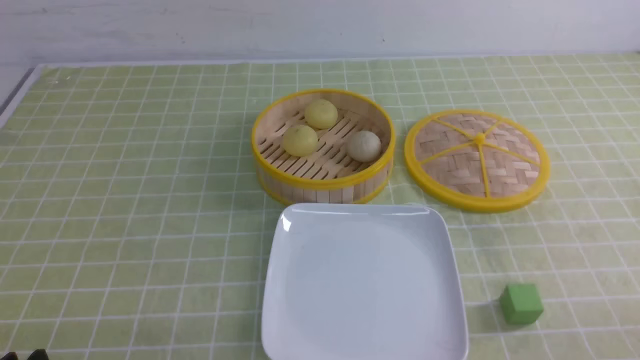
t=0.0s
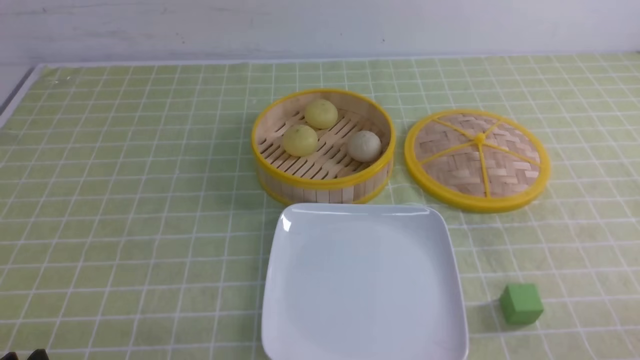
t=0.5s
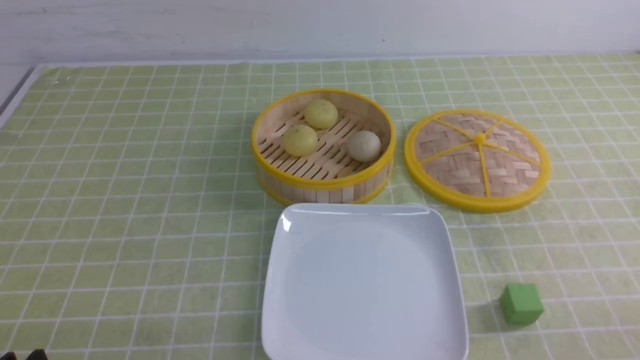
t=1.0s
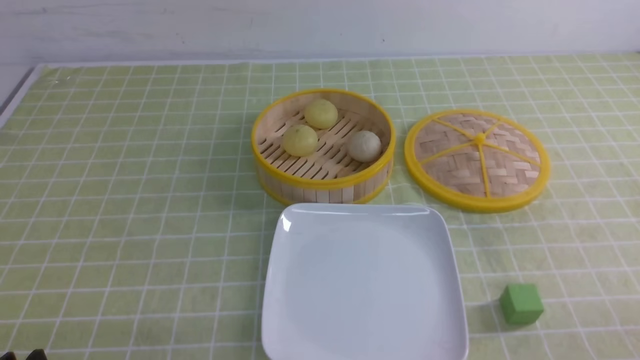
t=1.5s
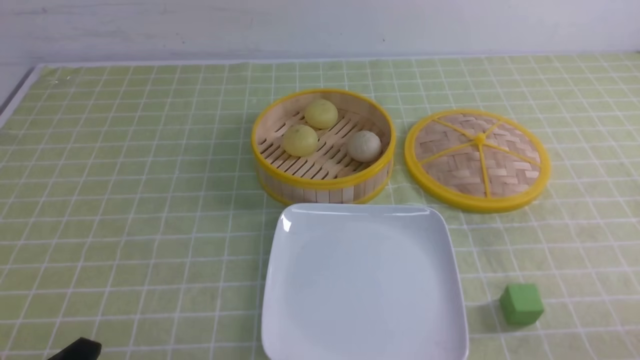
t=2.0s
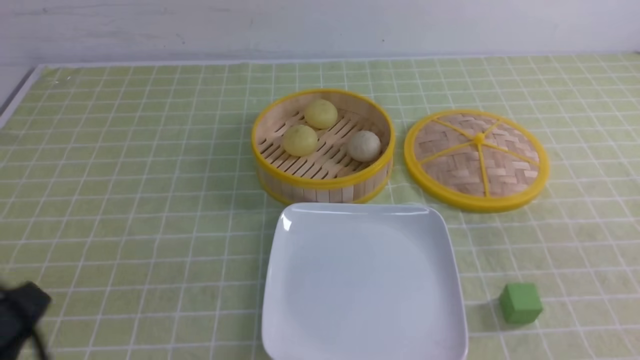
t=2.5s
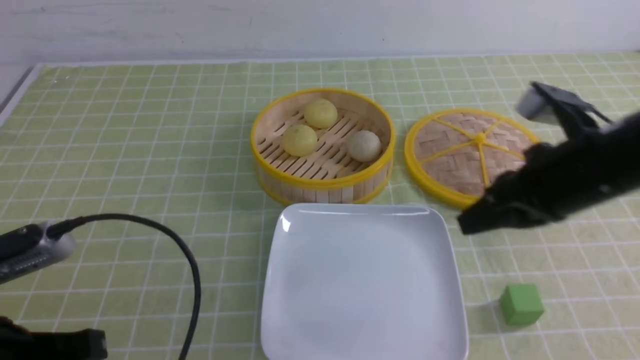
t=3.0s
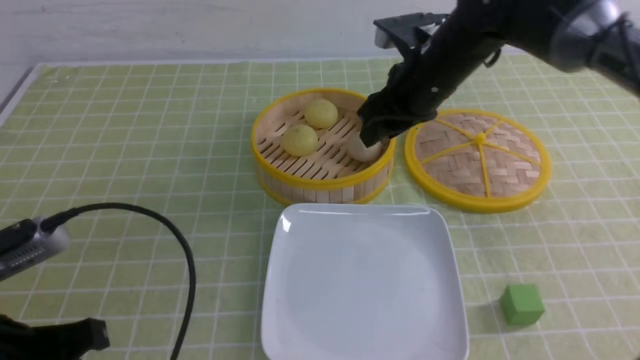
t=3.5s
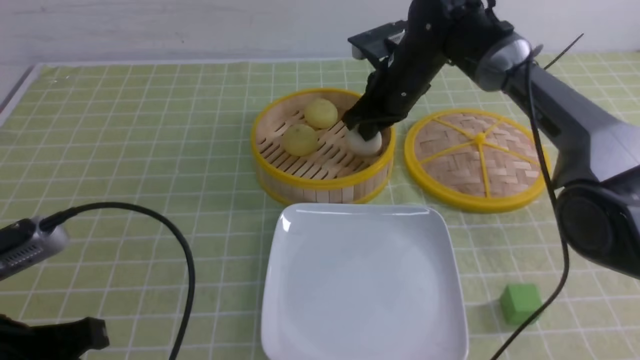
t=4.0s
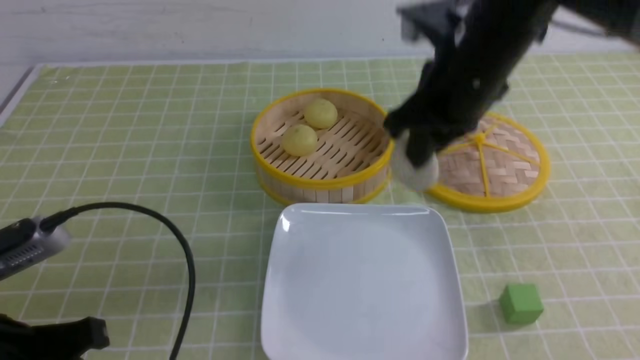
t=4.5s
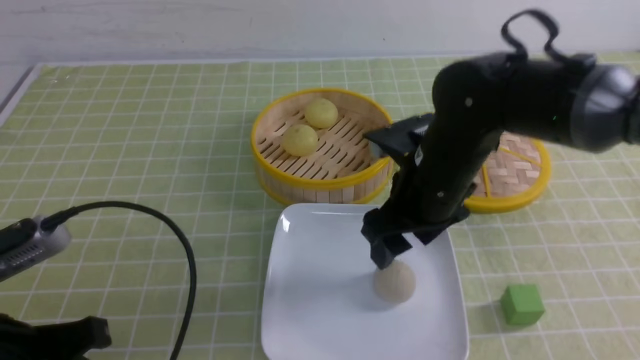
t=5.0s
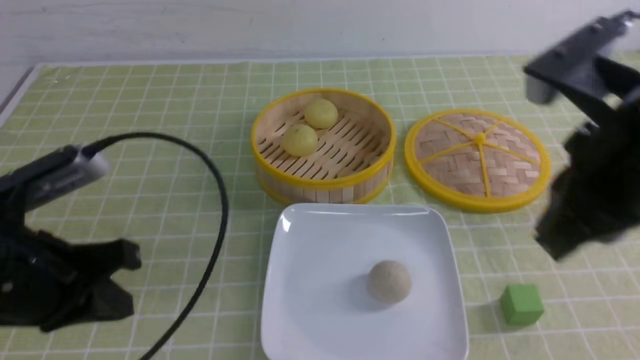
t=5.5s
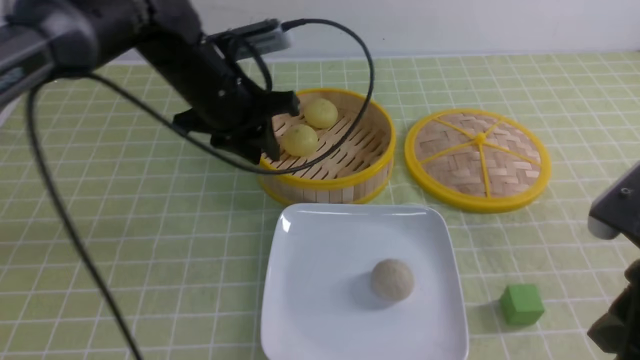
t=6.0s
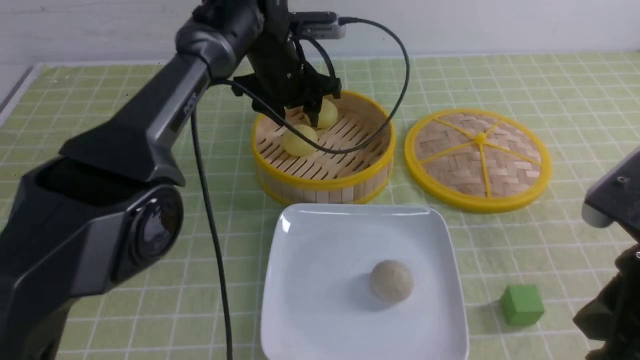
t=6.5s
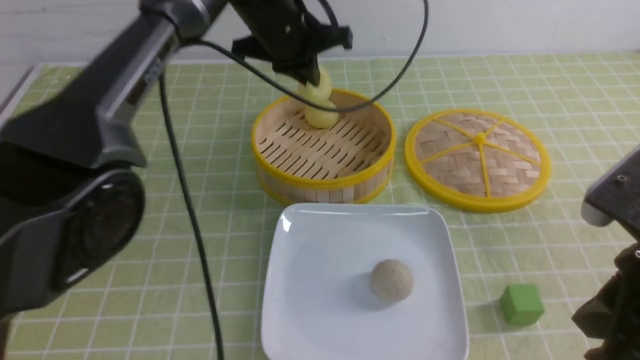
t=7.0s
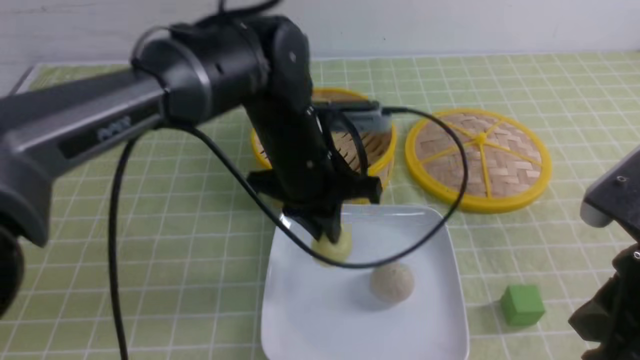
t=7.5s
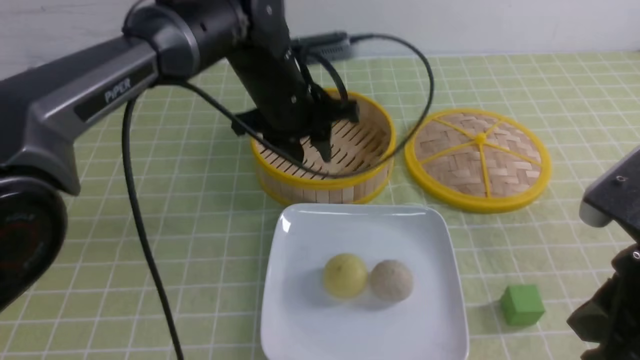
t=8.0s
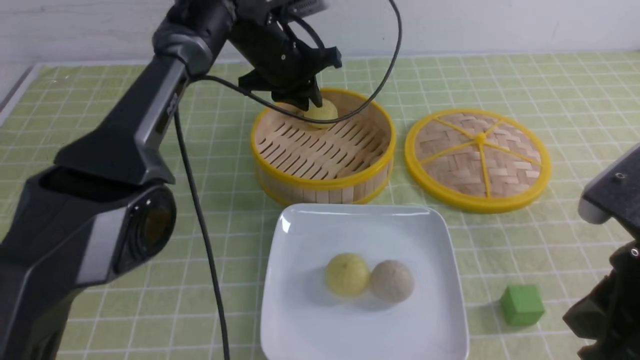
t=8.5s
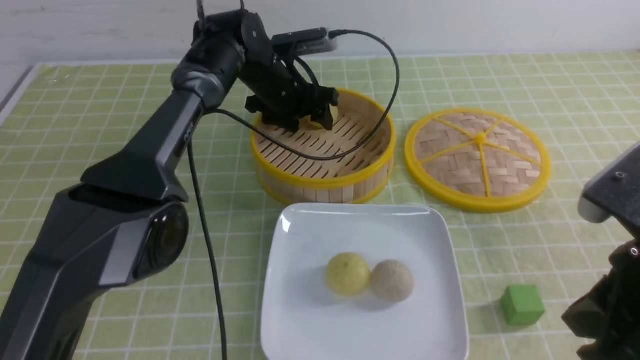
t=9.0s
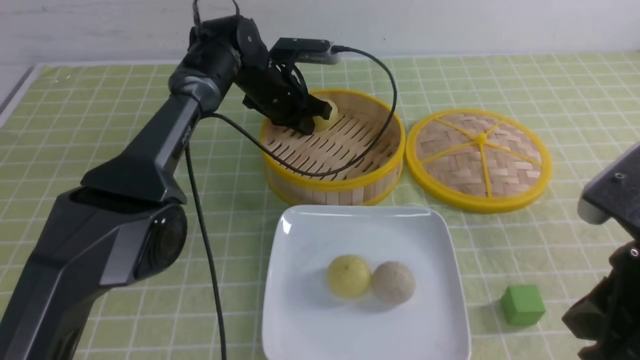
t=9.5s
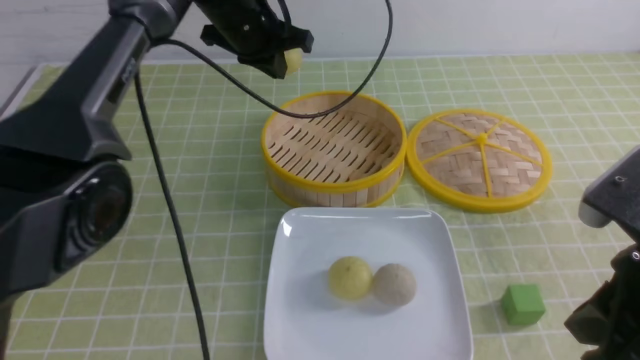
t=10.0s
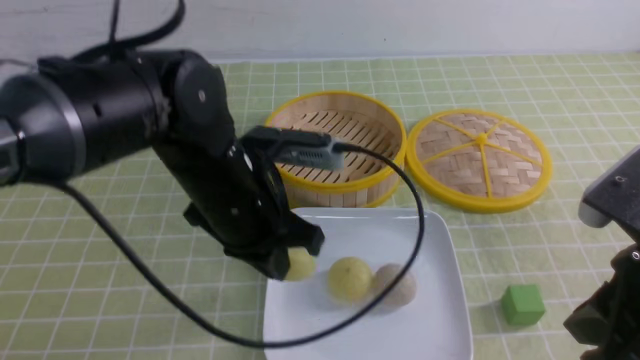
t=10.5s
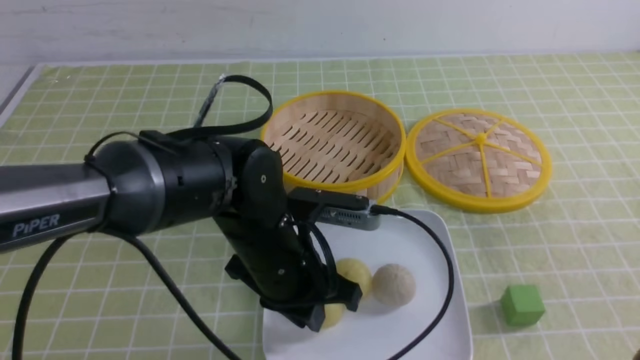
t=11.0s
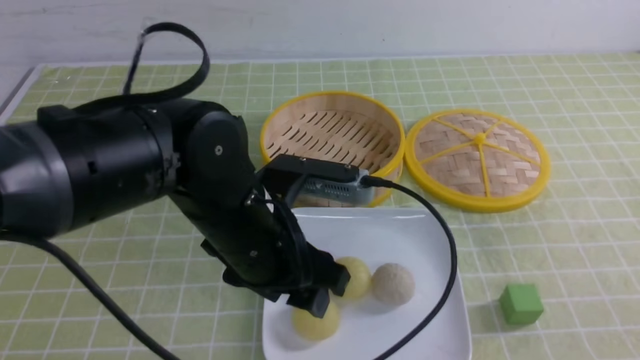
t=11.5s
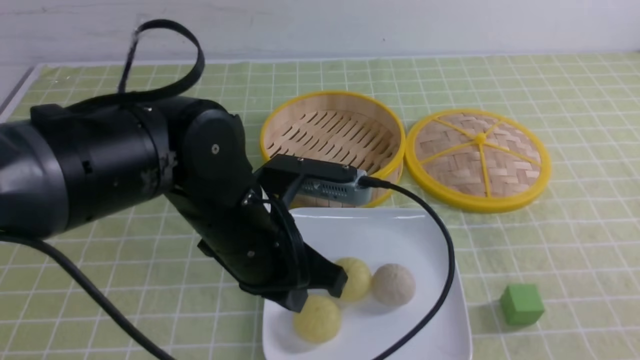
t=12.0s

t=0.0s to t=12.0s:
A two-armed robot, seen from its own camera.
Step, t=0.0s to t=3.5s: use the right arm to grab the steamed stuffed bun that is closest to it.
Step, t=4.0s to t=4.5s: use the right arm to put the steamed stuffed bun into the plate.
Step, t=5.0s to t=6.5s: use the left arm to grab the steamed stuffed bun that is closest to it.
Step, t=7.0s to t=7.5s: use the left arm to put the steamed stuffed bun into the plate.
Step, t=8.0s to t=9.5s: use the left arm to grab the steamed stuffed bun that is closest to it.
Step, t=10.0s to t=11.0s: use the left arm to put the steamed stuffed bun into the plate.
t=2.0s to t=4.0s: The left gripper shifts about 10 cm upward and forward, and closes up. Meanwhile the right gripper travels forward and to the left by about 50 cm.
t=4.0s to t=6.0s: The right gripper moves backward, some 35 cm, and opens and closes again. The left gripper goes approximately 30 cm forward and to the right, and opens its fingers.
t=6.0s to t=8.0s: The left gripper goes forward and backward, about 15 cm each way, reversing 2 times, and closes, then reopens.
t=8.0s to t=10.0s: The left gripper moves forward and to the left, approximately 10 cm, and closes.
t=10.0s to t=12.0s: The left gripper goes roughly 25 cm backward, and opens and closes again; the right gripper moves backward and to the right, approximately 15 cm.

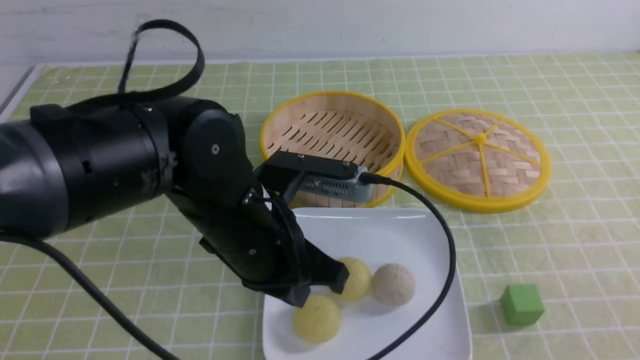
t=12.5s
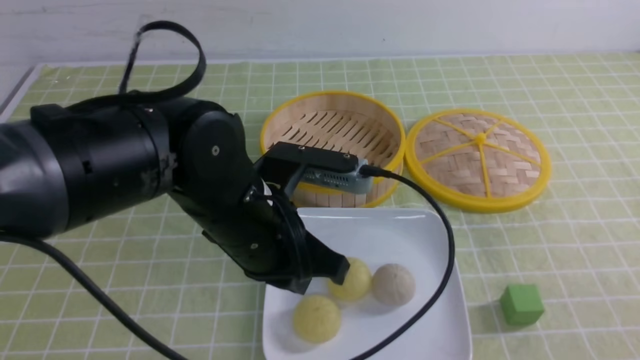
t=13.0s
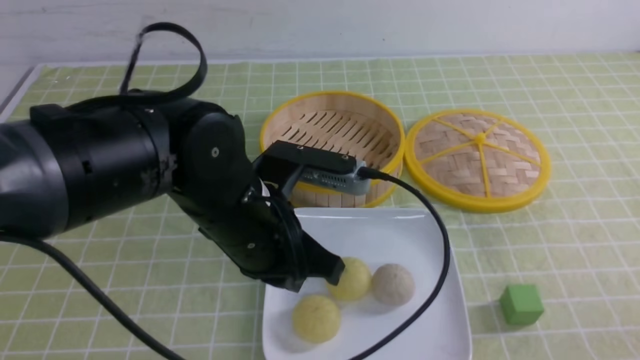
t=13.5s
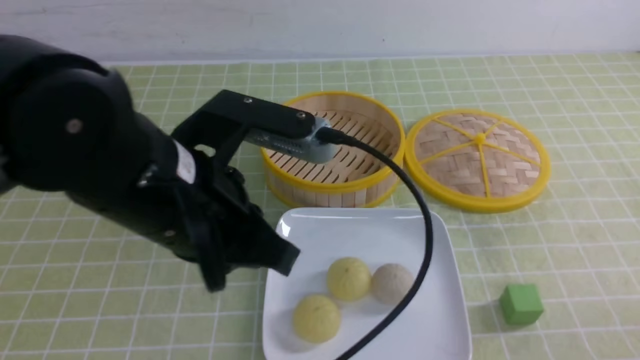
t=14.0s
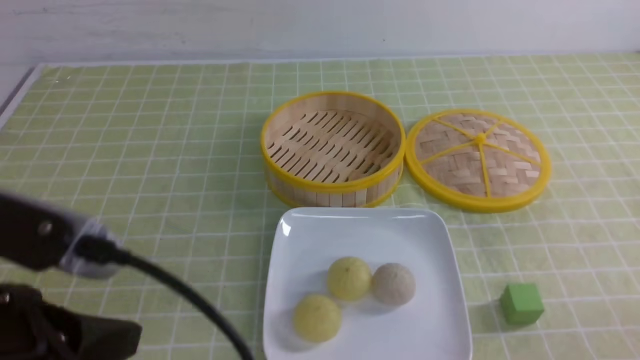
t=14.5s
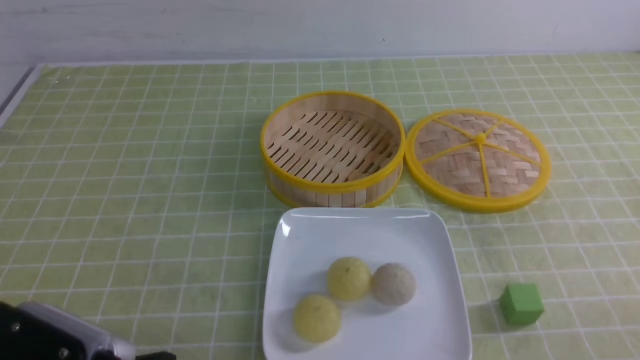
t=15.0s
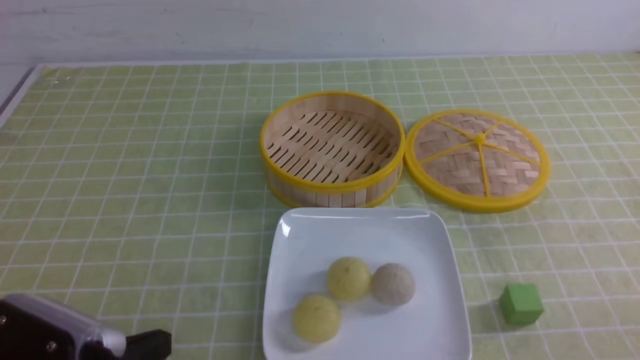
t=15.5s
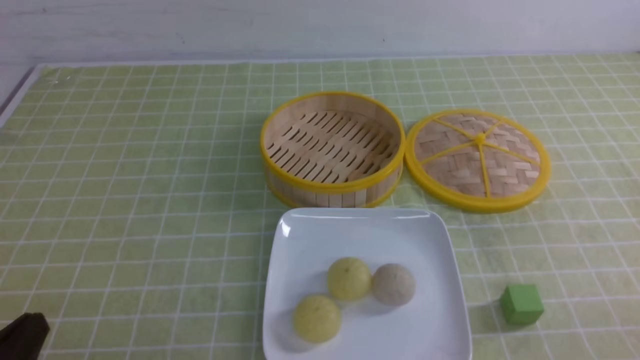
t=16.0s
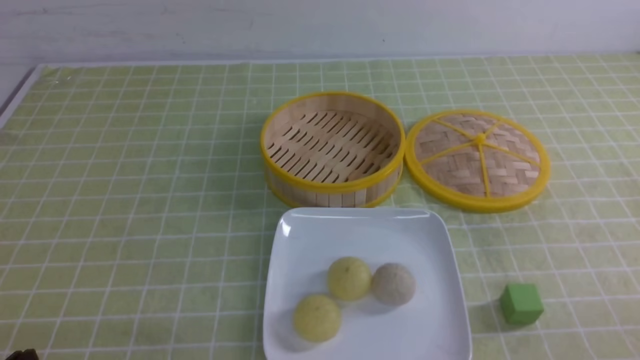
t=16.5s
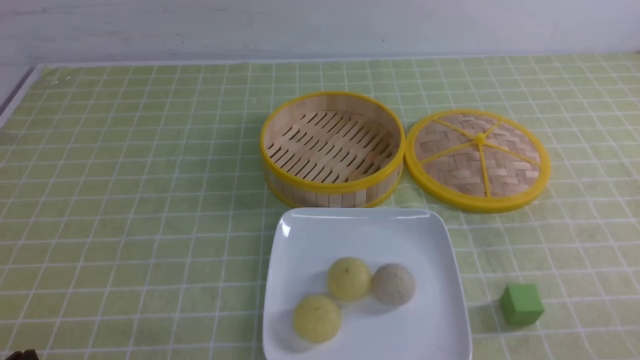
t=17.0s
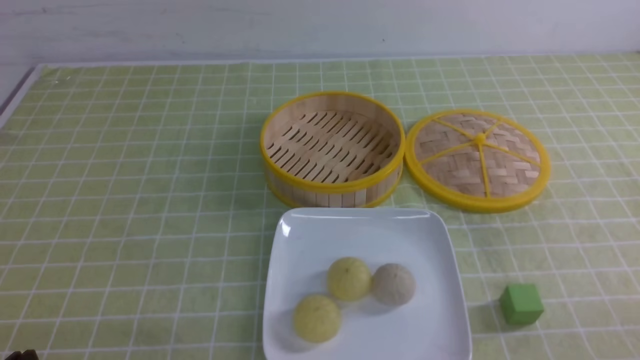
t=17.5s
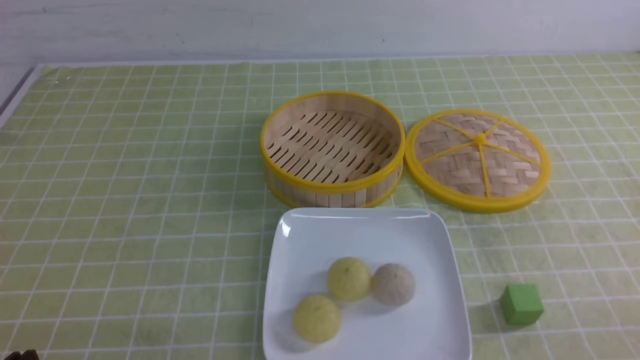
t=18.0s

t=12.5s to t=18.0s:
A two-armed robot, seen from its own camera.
t=12.5s to t=14.5s: The left gripper is displaced backward, to the left and upward by about 20 cm, while the right gripper moves downward, approximately 10 cm.
t=14.5s to t=16.0s: The left gripper is displaced downward and to the left by some 15 cm.

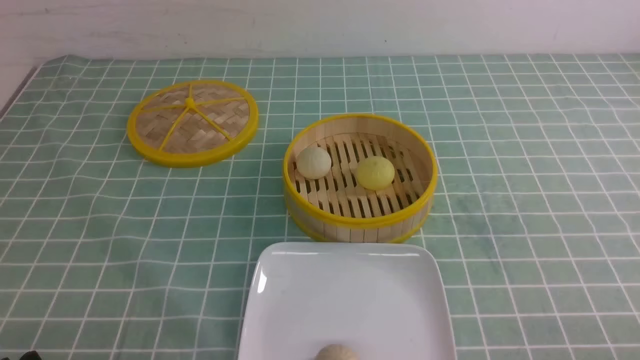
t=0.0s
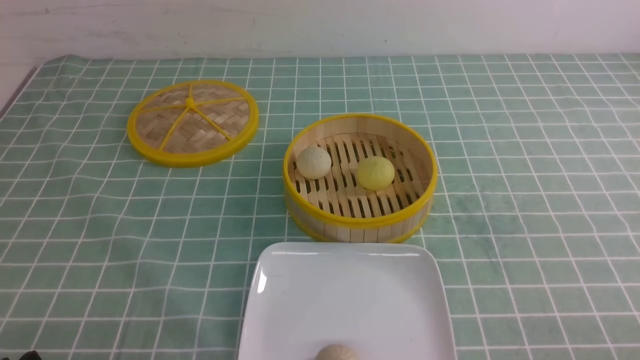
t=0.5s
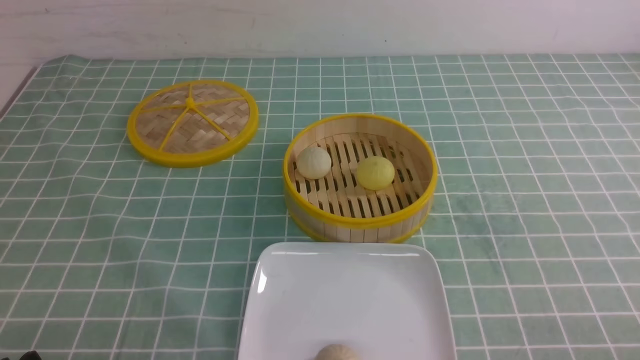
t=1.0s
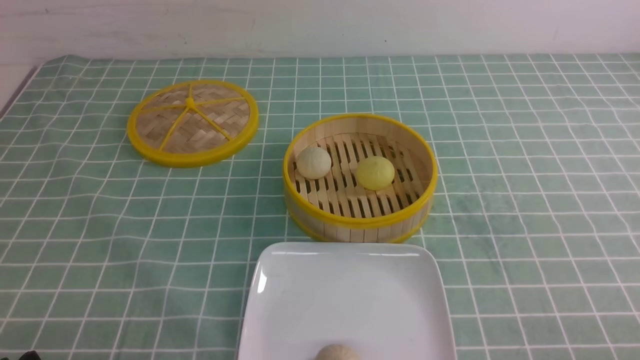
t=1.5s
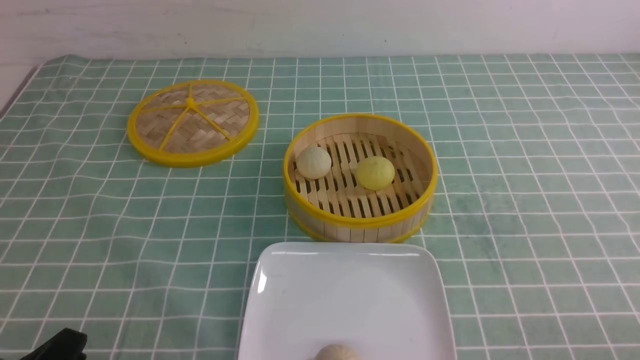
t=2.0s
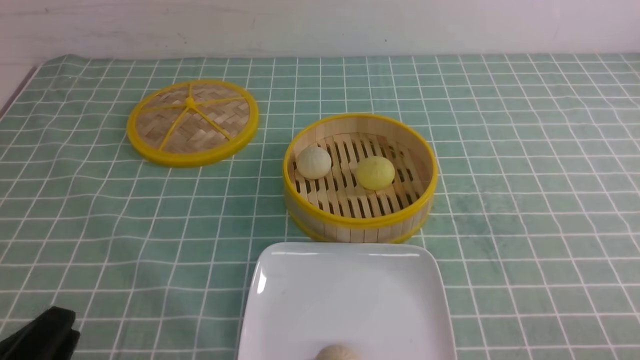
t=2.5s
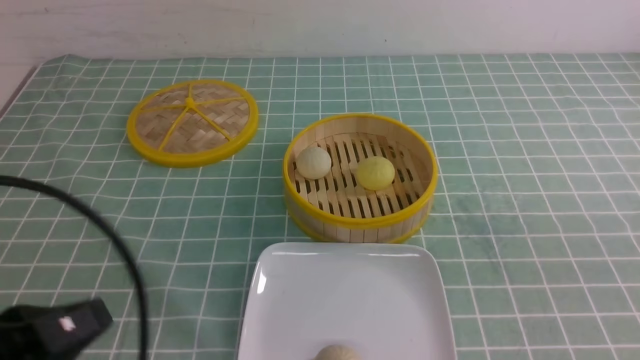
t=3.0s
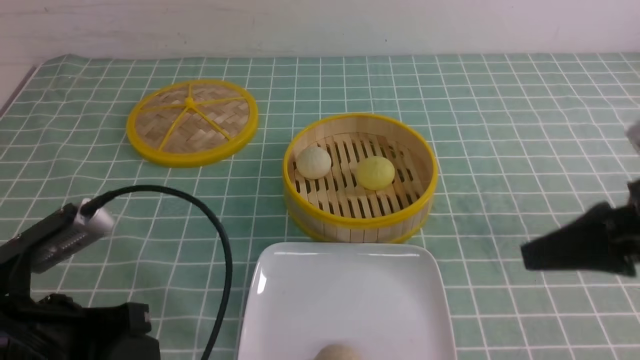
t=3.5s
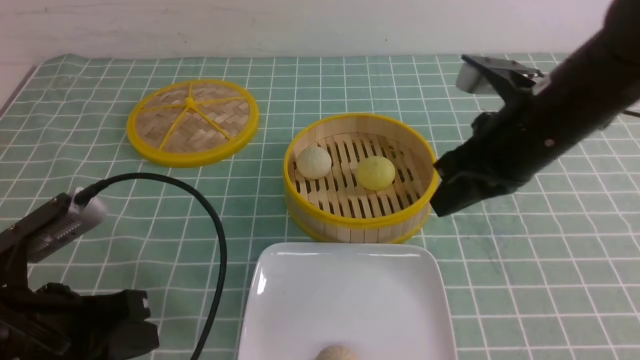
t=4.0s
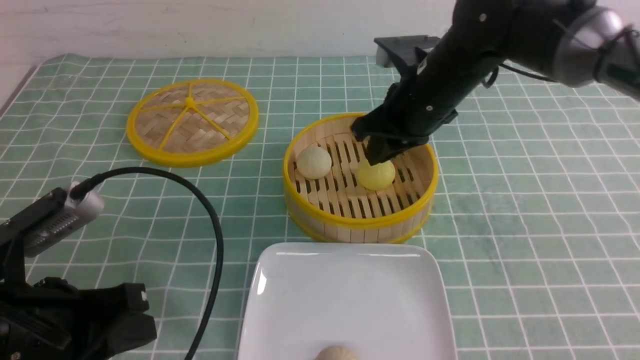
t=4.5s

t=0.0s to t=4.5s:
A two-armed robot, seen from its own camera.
t=2.0s to t=4.5s: The right gripper moves forward and to the left, roughly 40 cm, while the left gripper is displaced forward and upward by approximately 10 cm, and closes.
